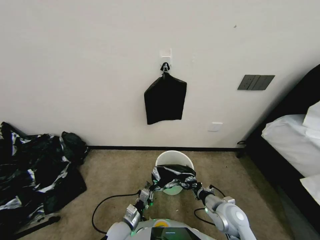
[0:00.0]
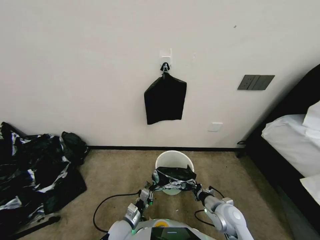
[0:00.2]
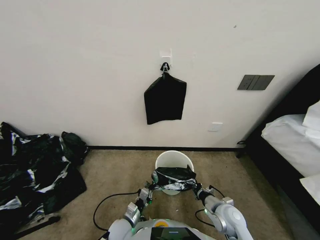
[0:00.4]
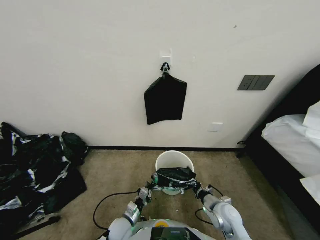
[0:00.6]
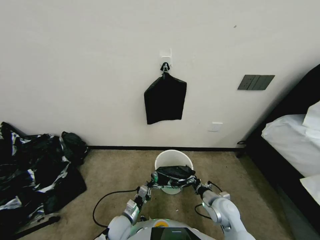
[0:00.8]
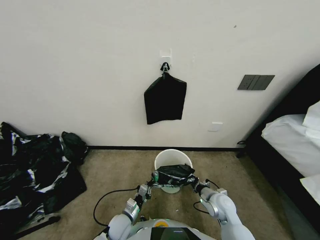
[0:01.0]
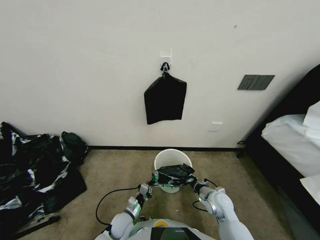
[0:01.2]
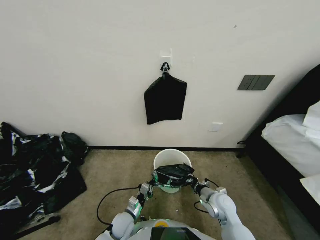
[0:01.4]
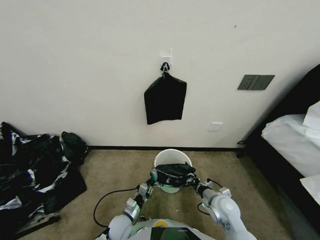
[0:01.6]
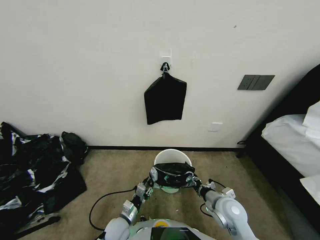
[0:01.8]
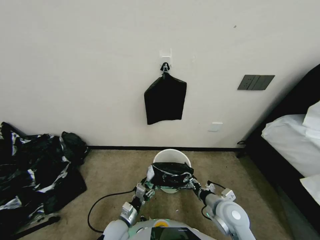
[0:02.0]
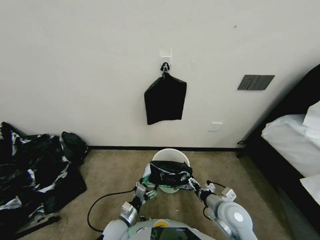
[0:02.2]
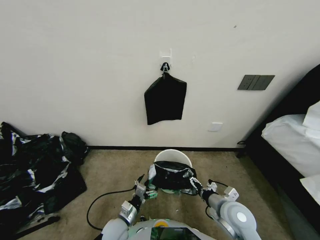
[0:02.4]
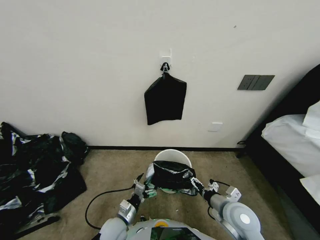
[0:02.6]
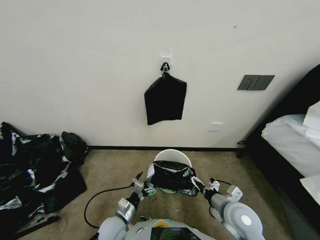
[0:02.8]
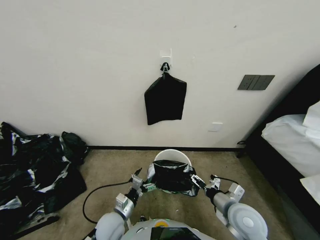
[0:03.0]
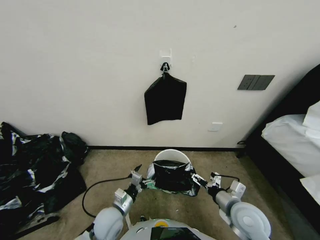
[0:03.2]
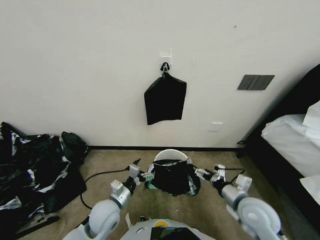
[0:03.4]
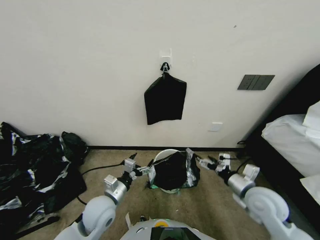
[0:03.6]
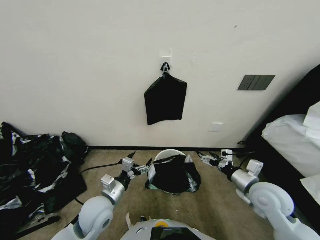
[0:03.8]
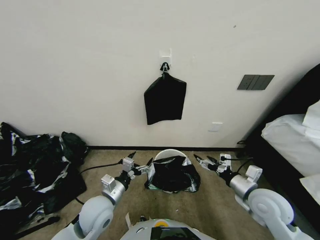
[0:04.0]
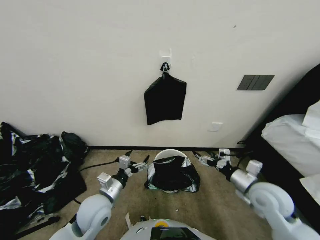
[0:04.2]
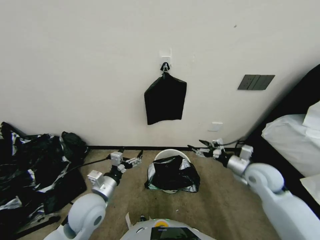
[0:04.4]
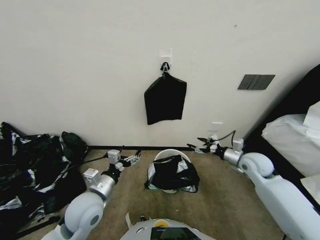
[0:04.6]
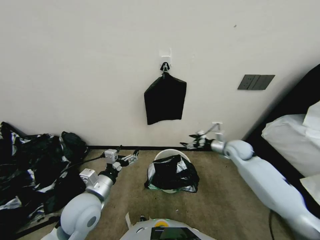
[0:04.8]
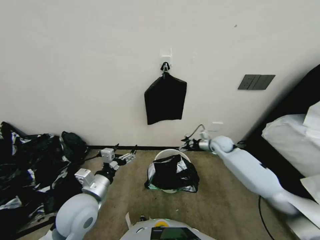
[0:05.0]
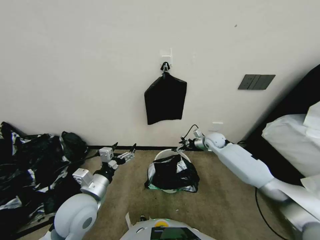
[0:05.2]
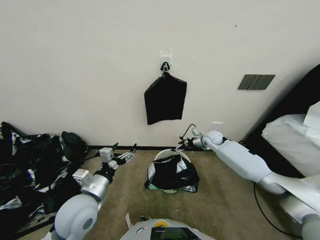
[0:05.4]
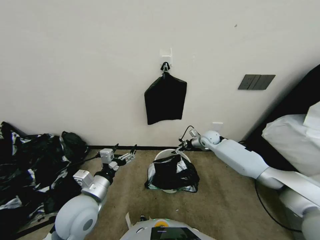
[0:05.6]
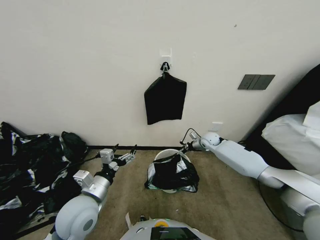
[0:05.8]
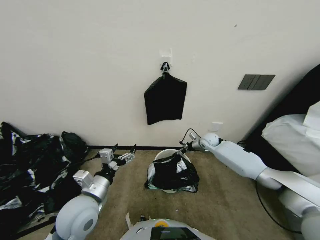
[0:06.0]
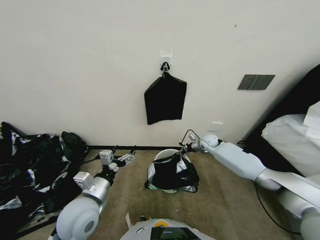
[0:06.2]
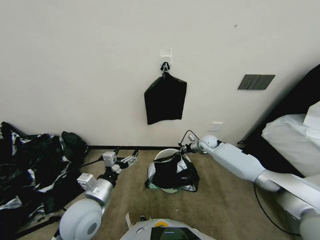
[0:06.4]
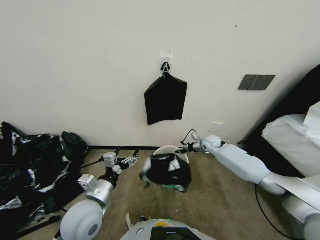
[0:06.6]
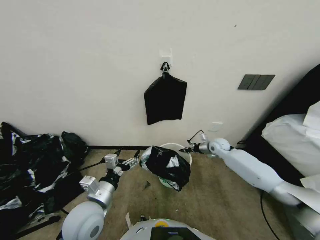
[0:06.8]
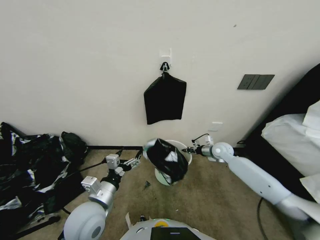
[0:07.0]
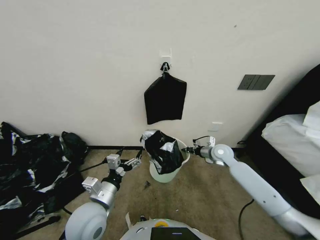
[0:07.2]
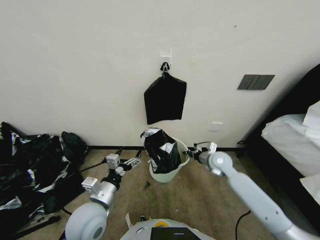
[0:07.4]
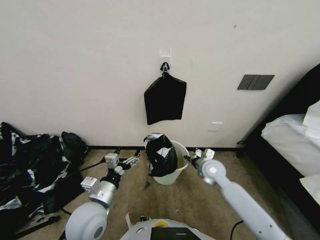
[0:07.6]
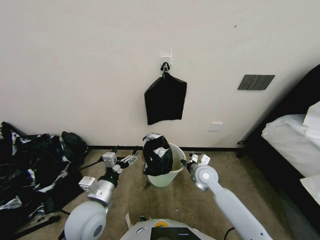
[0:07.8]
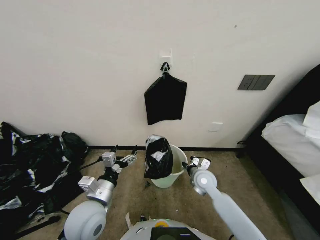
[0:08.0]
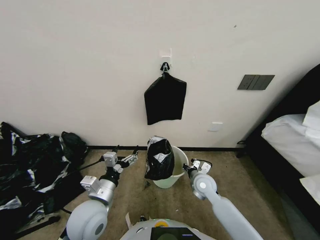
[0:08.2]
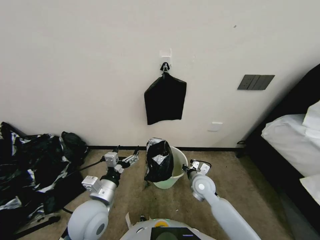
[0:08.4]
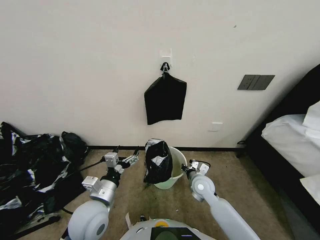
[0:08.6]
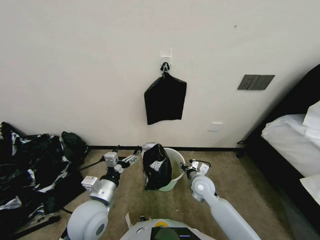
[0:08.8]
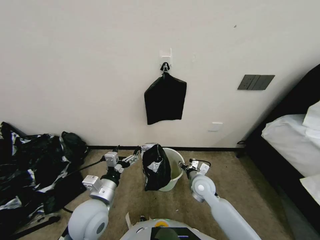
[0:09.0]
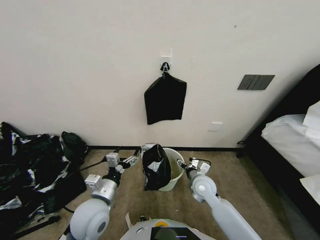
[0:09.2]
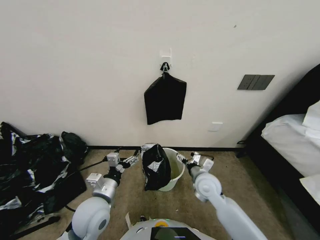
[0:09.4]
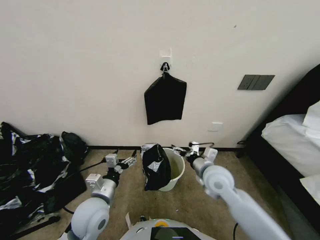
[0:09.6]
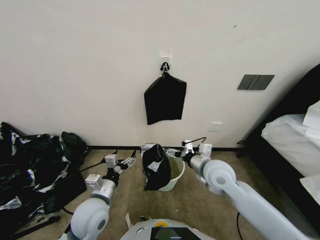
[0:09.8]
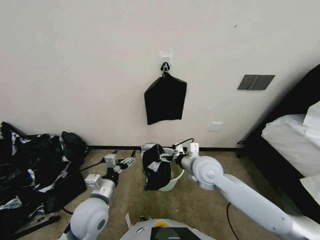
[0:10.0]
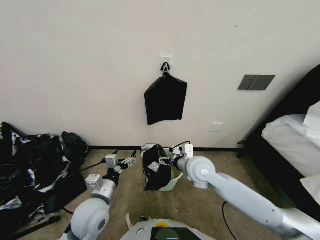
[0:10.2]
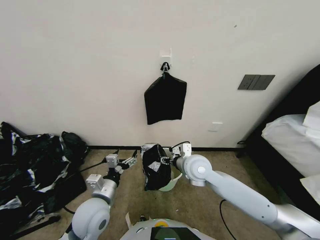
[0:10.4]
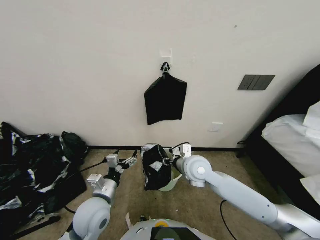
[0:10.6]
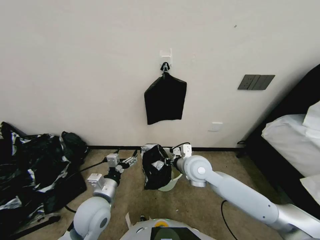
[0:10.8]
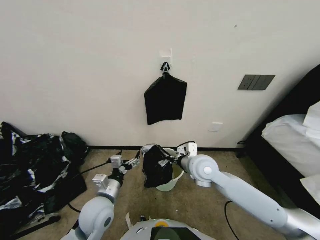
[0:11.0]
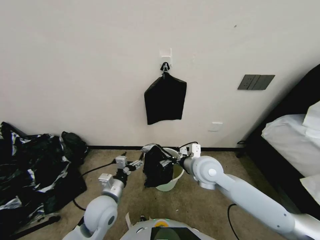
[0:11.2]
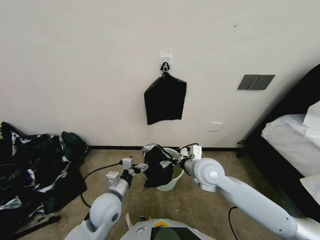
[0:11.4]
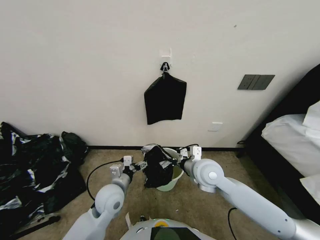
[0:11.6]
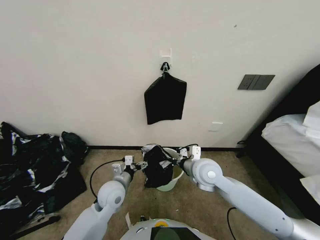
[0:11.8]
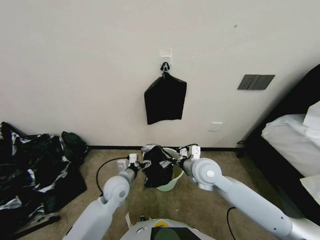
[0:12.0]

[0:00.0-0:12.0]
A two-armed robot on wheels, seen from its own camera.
Task of the whole recording: Place a trash bag onto the trash bin.
0:00.0 to 0:01.6: The right gripper ends up roughly 5 cm from where it was.
0:01.6 to 0:03.0: The grippers both shift upward by approximately 10 cm. The left gripper opens up. The right gripper opens its fingers.
0:03.0 to 0:04.4: The right gripper heads to the right, forward and upward, covering about 15 cm. The left gripper goes approximately 15 cm upward.
0:04.4 to 0:06.0: The right gripper travels forward by about 25 cm.
0:06.0 to 0:07.6: The right gripper travels backward by approximately 15 cm, and closes up.
0:07.6 to 0:09.0: The right gripper travels to the left, backward and downward by about 10 cm, and opens its fingers.
0:09.0 to 0:10.4: The right gripper goes approximately 15 cm upward.
0:10.4 to 0:12.0: The left gripper travels forward by some 10 cm; the right gripper closes.

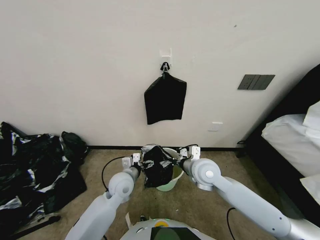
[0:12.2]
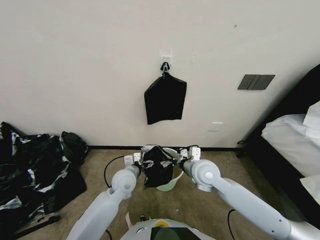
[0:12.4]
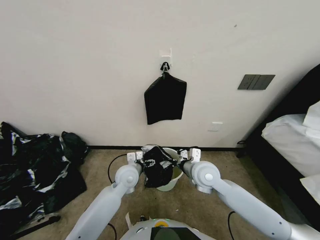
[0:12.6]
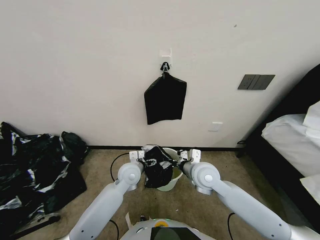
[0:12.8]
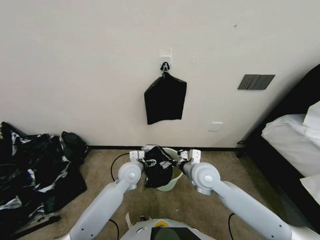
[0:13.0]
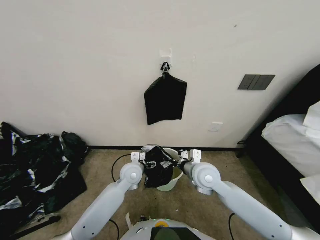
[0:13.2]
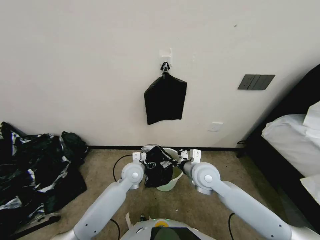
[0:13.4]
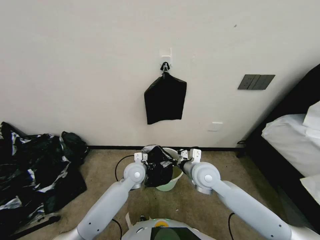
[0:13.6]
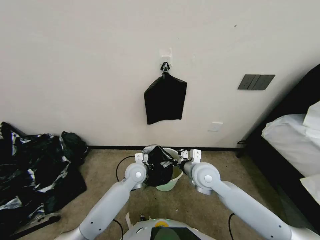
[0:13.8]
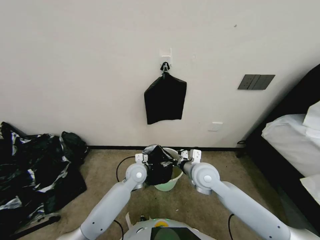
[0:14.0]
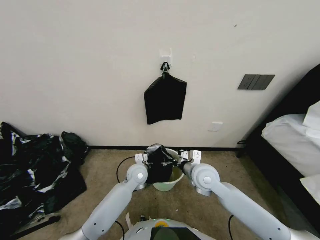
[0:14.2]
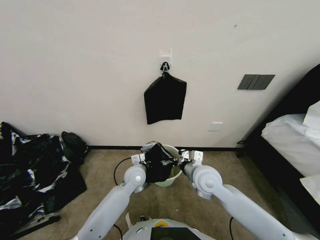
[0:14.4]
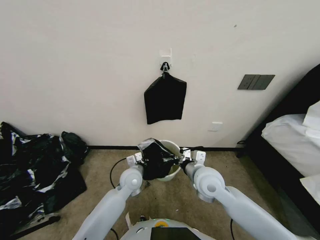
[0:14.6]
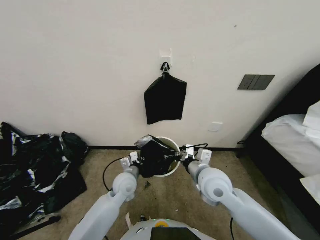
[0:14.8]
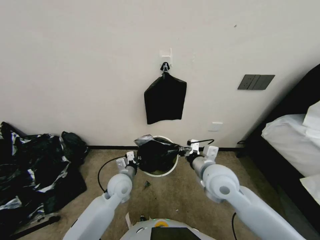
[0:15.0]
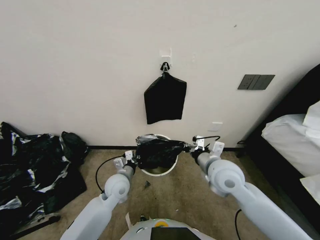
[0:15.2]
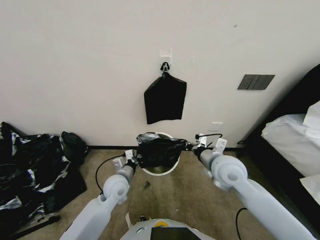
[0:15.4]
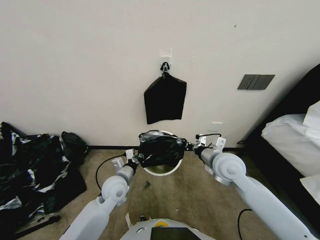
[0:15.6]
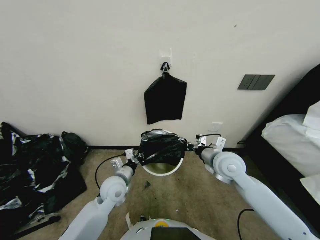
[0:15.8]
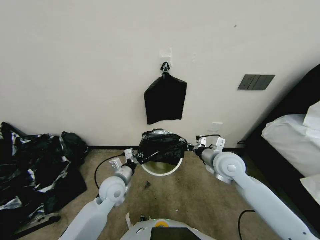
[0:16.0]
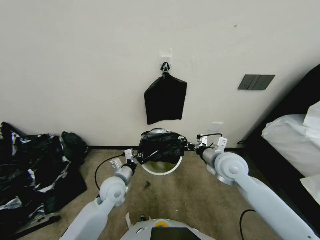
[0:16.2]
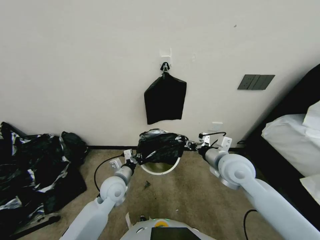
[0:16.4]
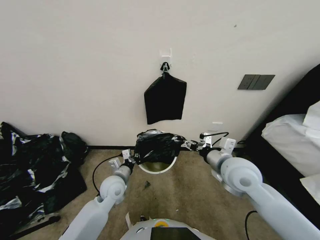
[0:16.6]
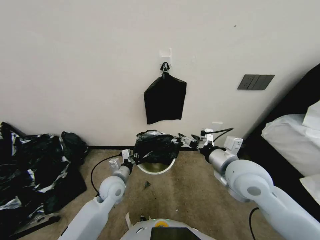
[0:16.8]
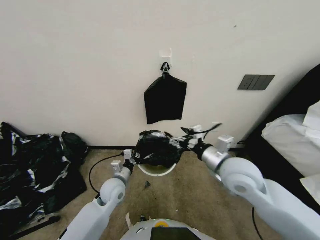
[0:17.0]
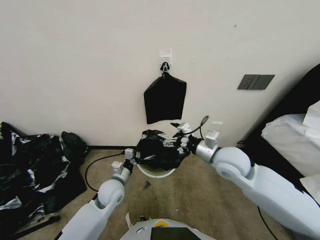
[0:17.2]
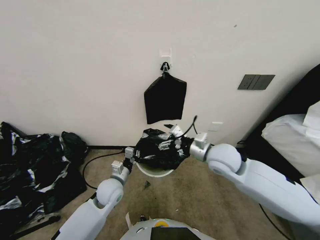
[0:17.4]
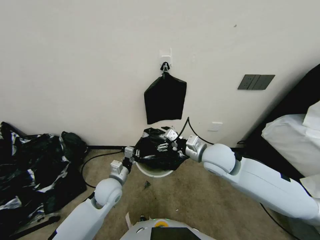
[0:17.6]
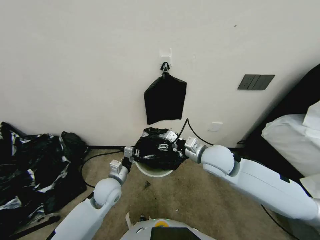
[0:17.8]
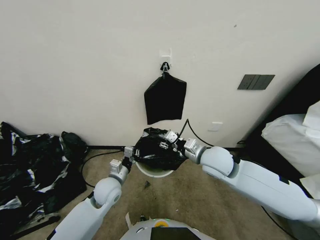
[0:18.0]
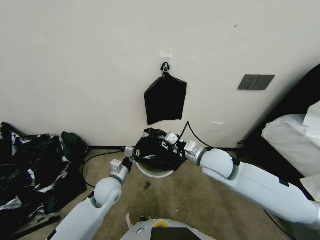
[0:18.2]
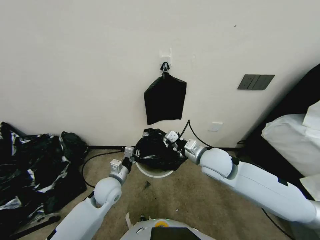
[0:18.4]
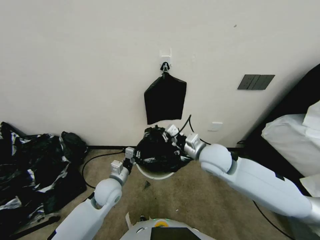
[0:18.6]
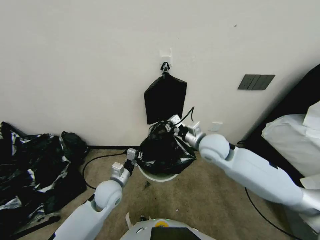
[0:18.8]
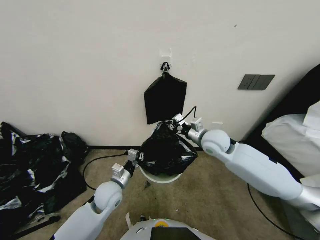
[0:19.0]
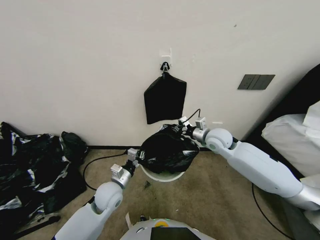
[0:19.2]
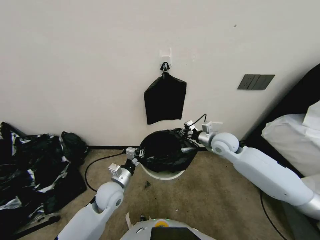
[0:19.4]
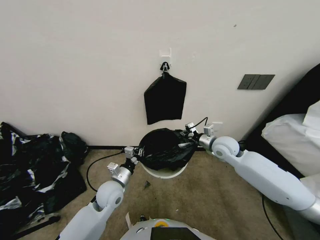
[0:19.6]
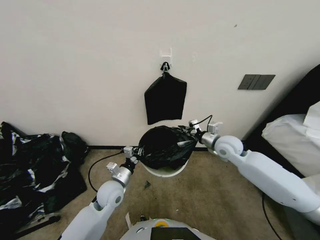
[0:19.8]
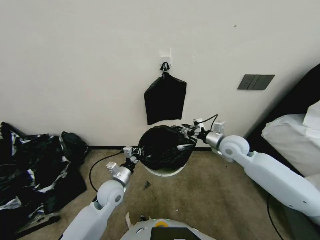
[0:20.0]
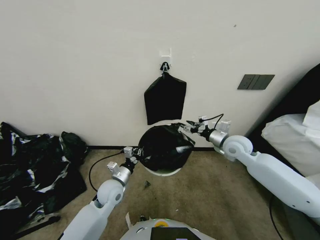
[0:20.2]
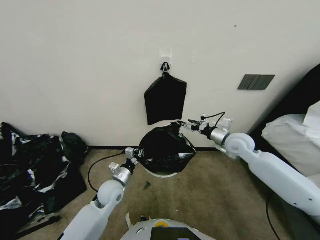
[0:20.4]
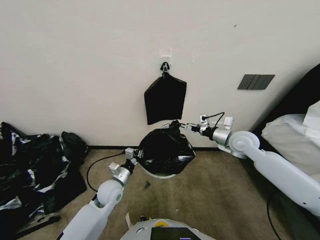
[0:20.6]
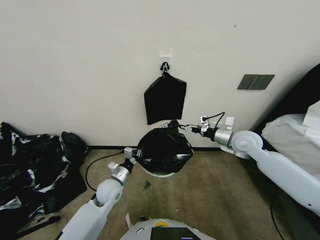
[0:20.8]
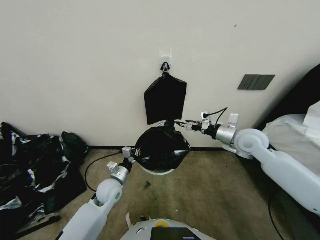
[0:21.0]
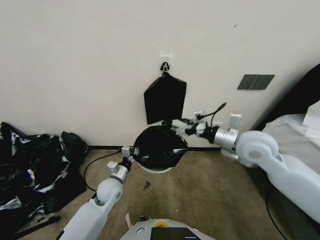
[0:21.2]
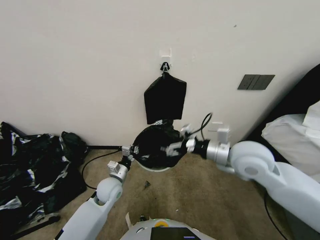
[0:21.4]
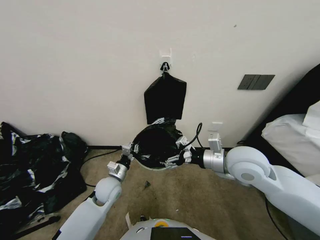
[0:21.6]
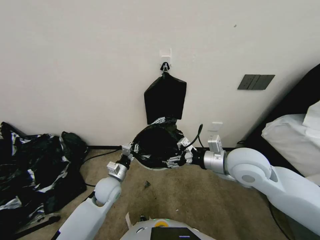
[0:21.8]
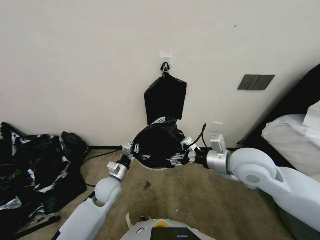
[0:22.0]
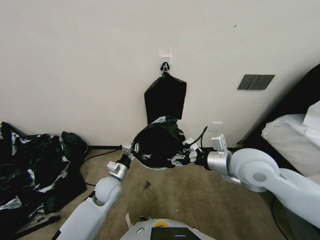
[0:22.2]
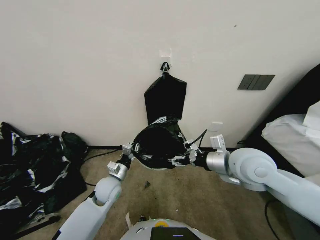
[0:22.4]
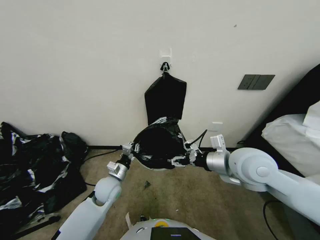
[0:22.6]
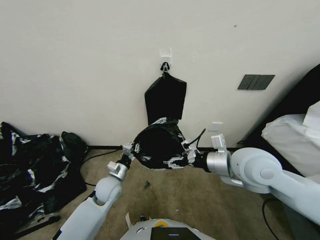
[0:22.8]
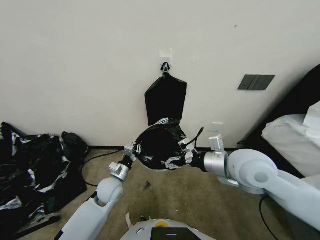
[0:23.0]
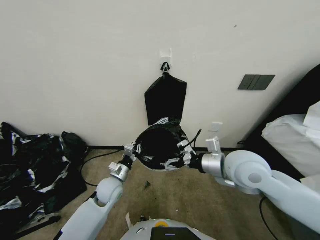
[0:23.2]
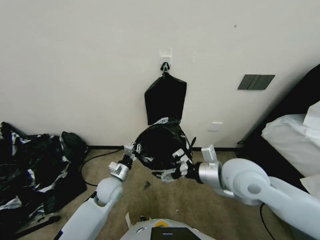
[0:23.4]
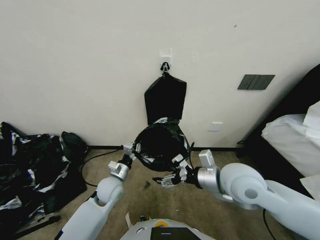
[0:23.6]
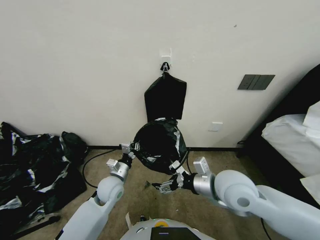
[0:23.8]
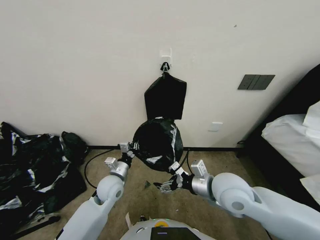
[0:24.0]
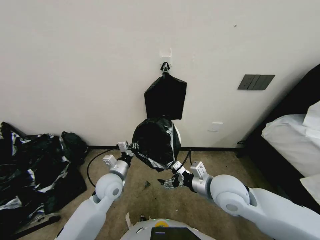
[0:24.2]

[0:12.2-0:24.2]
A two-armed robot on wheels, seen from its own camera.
Task of the whole recording: Place a trash bag onto the trash bin.
0:12.2 to 0:13.8: The left gripper heads forward and to the right, covering about 10 cm, and closes up.
0:13.8 to 0:15.2: The right gripper heads upward, covering about 5 cm. The left gripper travels to the left and backward by approximately 10 cm, and closes its fingers.
0:15.2 to 0:16.6: The right gripper opens.
0:16.6 to 0:18.2: The right gripper ends up some 5 cm from where it was, and opens, then closes once more.
0:18.2 to 0:19.8: The right gripper moves forward and to the right, approximately 15 cm.
0:19.8 to 0:21.2: The right gripper goes some 10 cm upward and backward, and opens its fingers.
0:21.2 to 0:22.6: The right gripper is displaced backward and to the left by roughly 10 cm.
0:22.6 to 0:24.2: The right gripper heads downward, covering about 10 cm.
